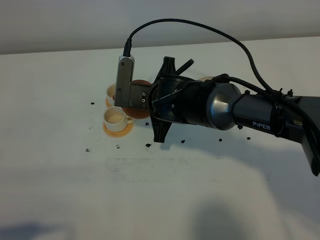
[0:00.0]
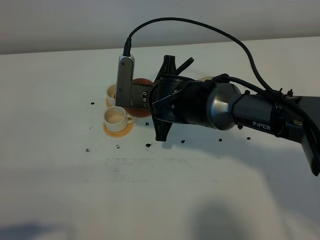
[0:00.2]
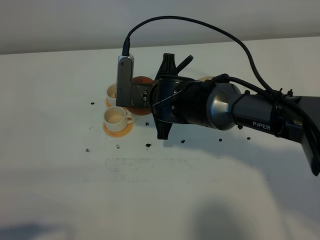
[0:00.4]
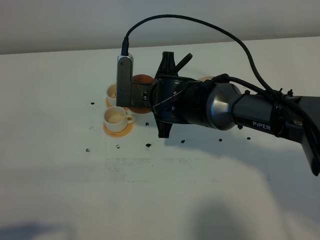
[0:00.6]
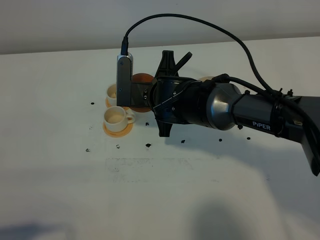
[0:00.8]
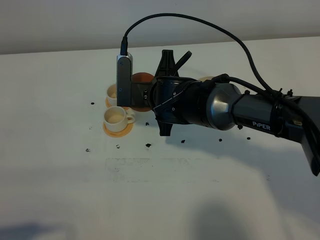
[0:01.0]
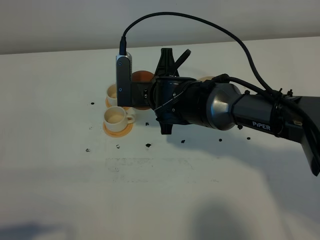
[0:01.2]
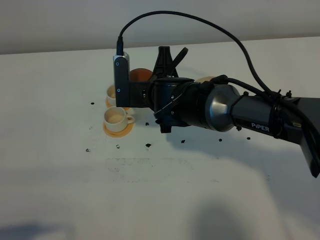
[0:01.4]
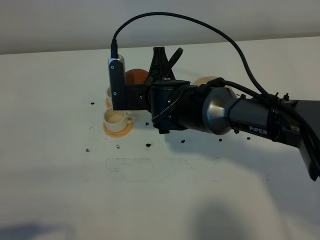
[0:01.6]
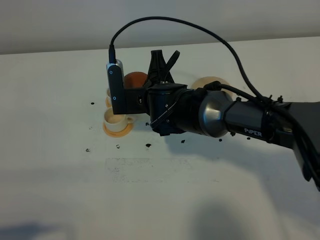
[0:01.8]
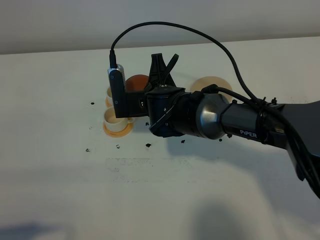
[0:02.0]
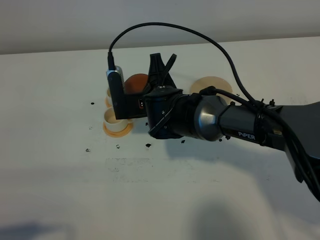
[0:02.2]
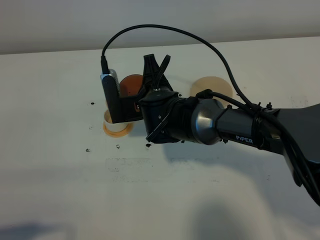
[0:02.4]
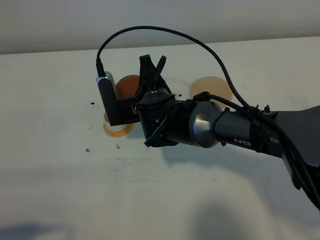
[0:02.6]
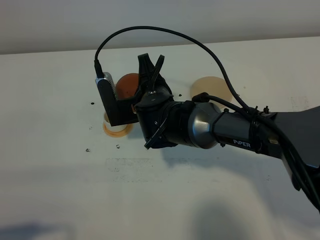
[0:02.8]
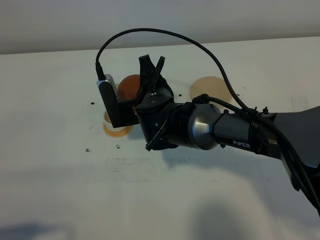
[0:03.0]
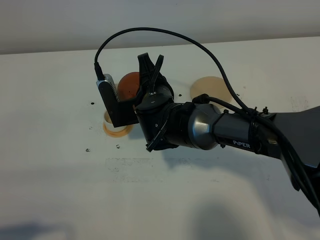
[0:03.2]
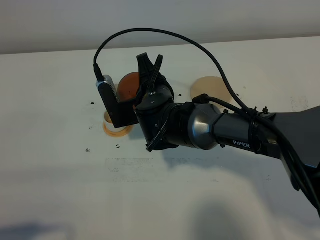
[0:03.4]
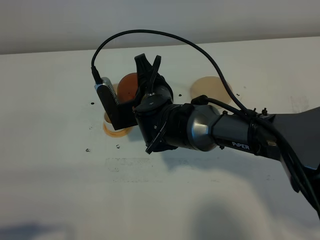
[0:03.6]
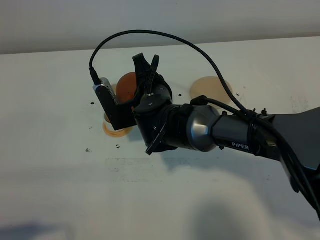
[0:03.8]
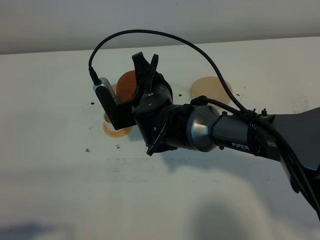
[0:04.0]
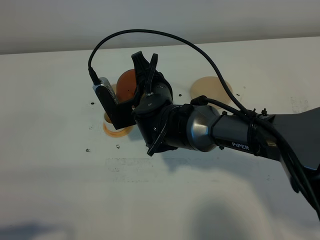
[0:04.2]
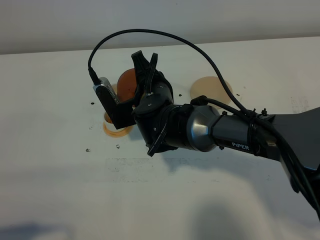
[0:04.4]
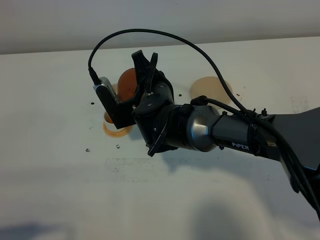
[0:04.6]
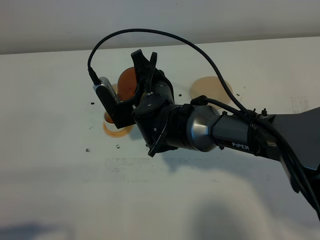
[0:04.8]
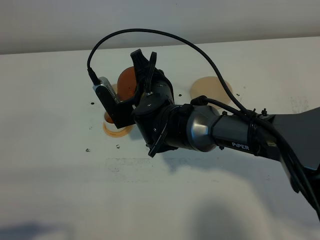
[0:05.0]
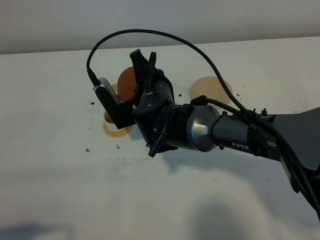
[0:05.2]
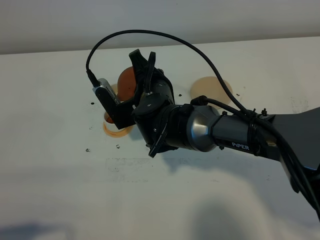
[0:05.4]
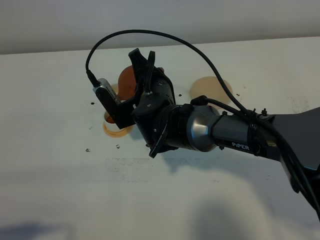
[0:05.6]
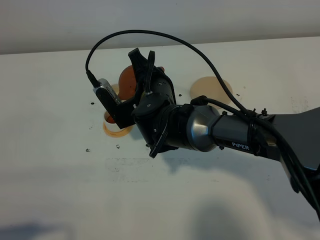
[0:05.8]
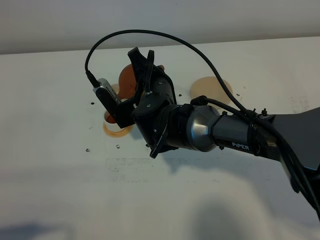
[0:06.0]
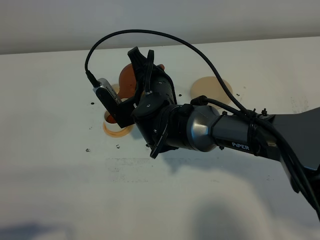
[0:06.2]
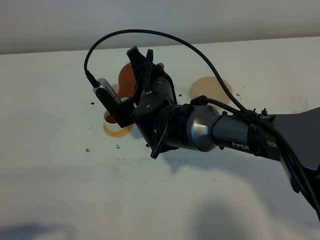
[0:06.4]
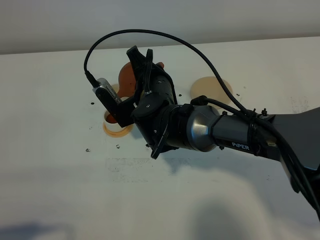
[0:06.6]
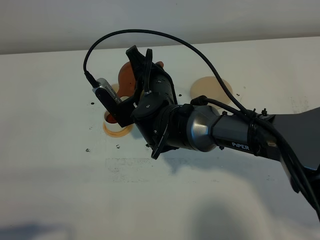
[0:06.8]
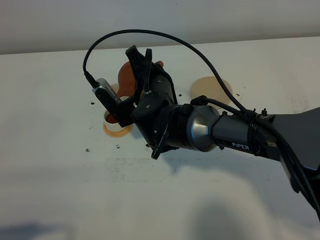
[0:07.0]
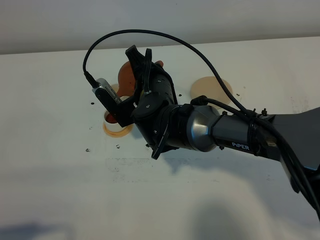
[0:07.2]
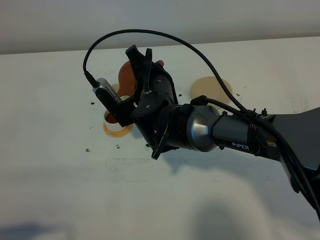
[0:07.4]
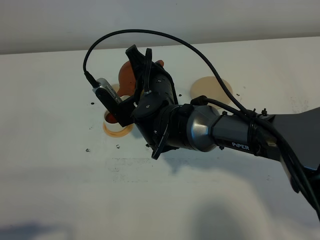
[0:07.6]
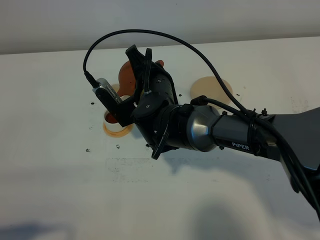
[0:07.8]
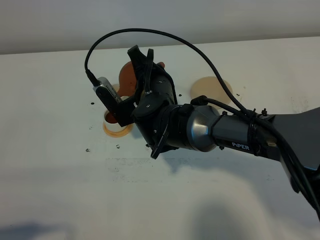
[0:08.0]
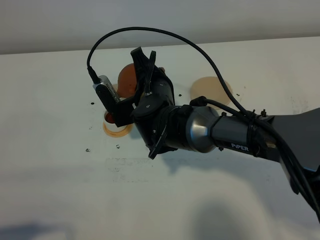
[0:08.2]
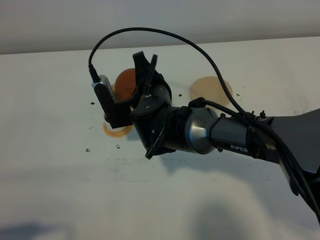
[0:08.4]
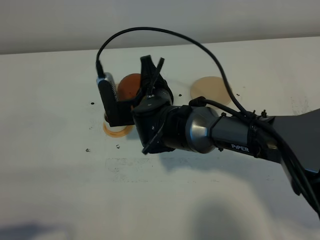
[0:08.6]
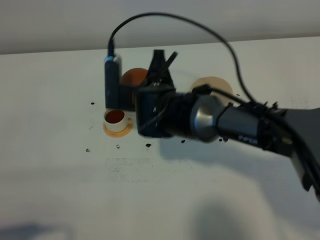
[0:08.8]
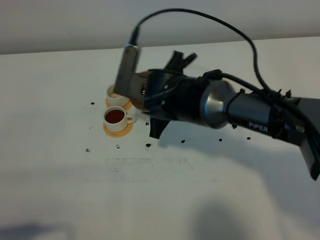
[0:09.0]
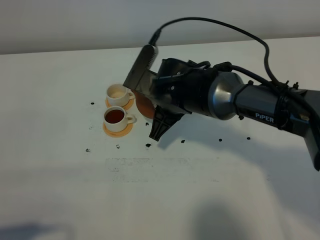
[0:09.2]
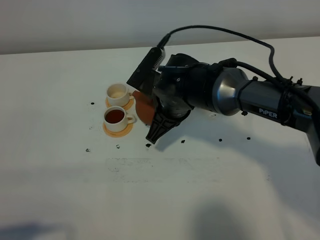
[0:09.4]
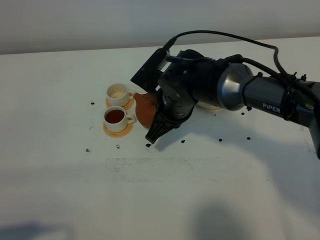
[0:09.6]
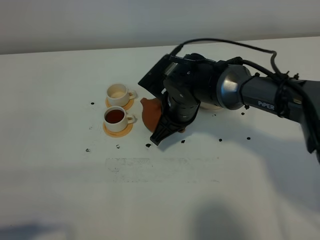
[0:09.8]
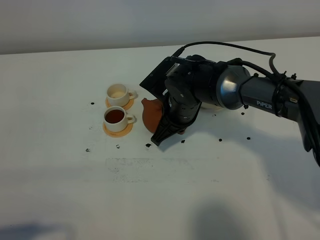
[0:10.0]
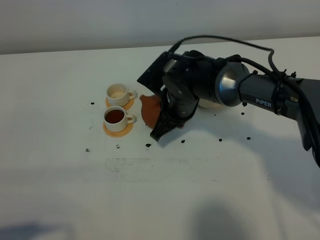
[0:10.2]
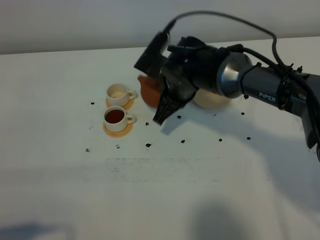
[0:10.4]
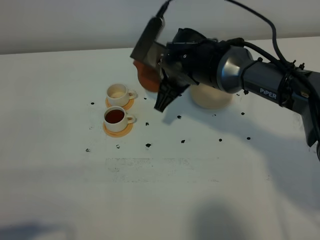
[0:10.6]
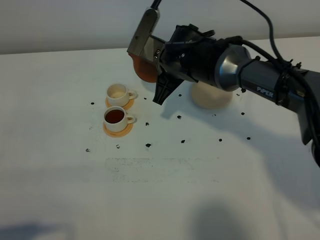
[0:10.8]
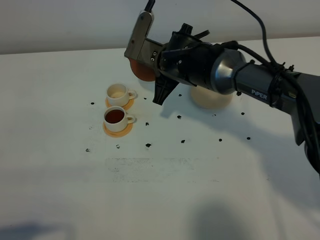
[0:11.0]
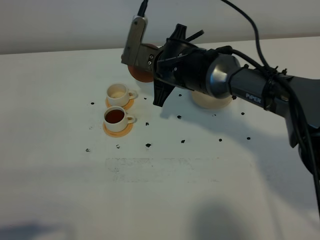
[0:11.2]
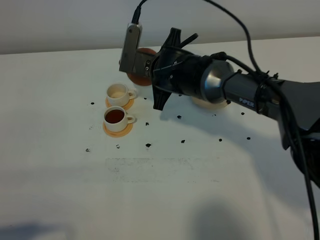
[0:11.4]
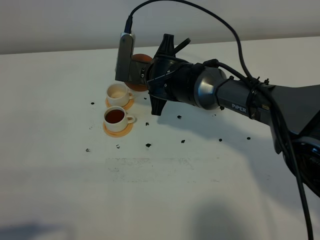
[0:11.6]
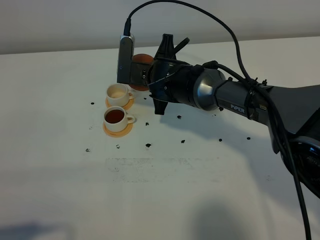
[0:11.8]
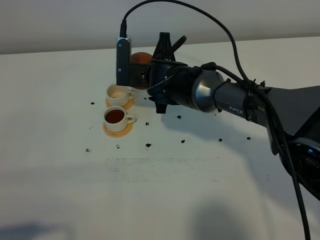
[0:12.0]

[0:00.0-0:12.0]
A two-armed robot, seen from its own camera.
Task of the whole recording: grasp the brown teapot and pour the tea into the two white teacups one by one, put the brown teapot back in its original place.
Step, 0:00.0 to 0:08.6: Pour tea into the teacup with the right gripper.
0:00.0 to 0:01.6: There are only small adjustments of the grippers.
0:01.6 to 0:03.0: The grippers make only small movements.
0:03.0 to 0:06.0: The grippers move only a little.
0:06.0 to 0:07.6: Both grippers stay about where they are.
0:09.0 to 0:10.4: The right gripper moves about 5 cm.

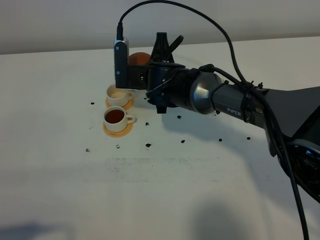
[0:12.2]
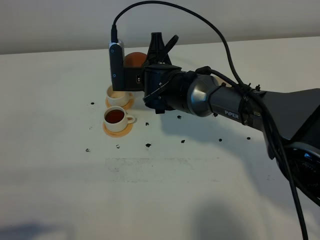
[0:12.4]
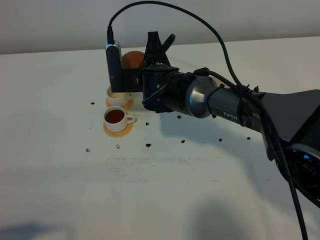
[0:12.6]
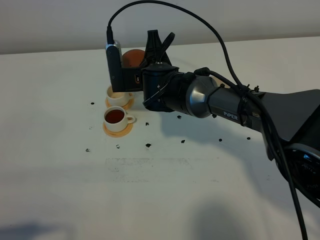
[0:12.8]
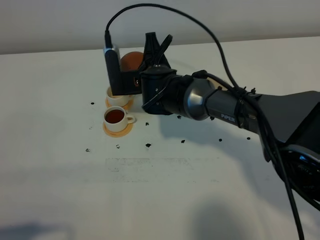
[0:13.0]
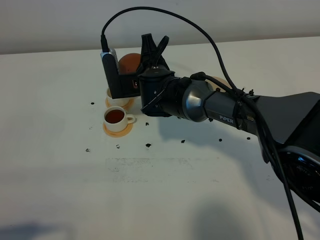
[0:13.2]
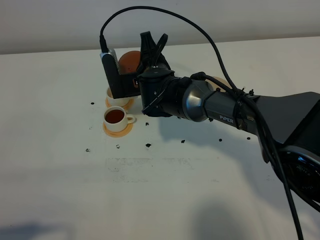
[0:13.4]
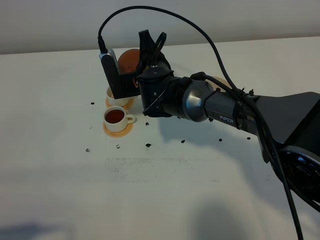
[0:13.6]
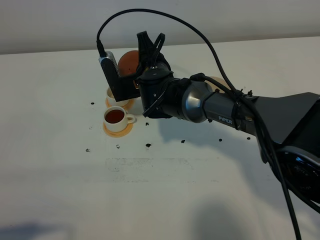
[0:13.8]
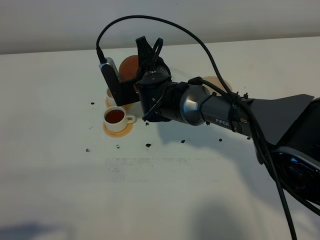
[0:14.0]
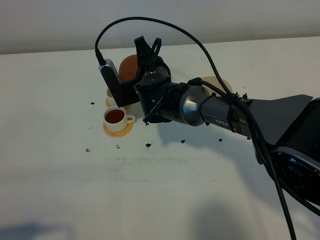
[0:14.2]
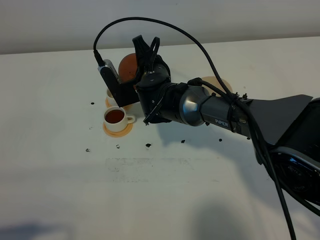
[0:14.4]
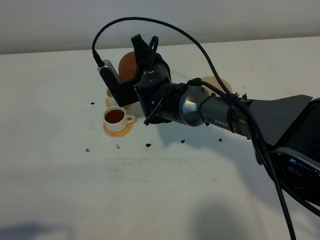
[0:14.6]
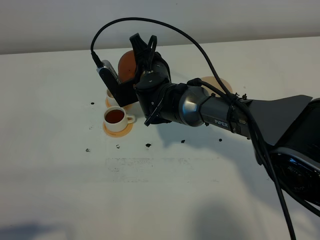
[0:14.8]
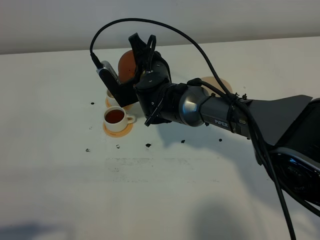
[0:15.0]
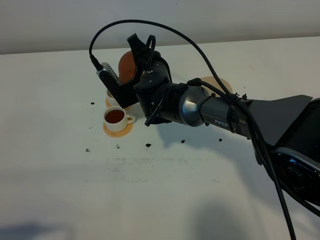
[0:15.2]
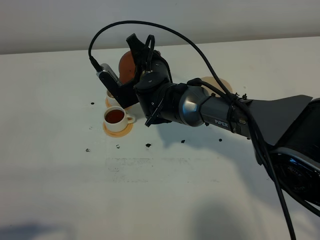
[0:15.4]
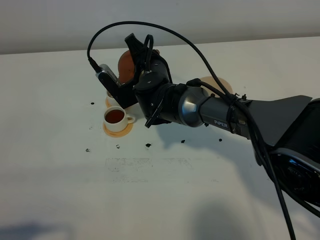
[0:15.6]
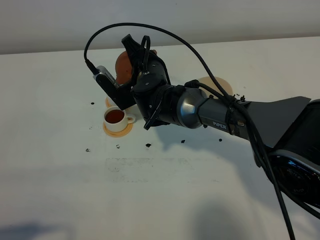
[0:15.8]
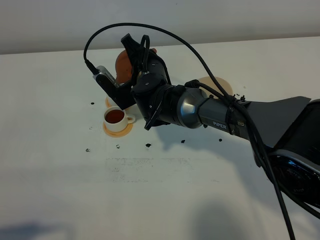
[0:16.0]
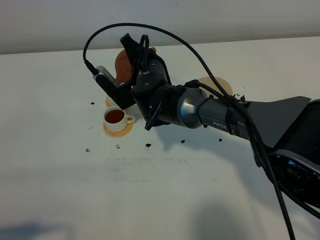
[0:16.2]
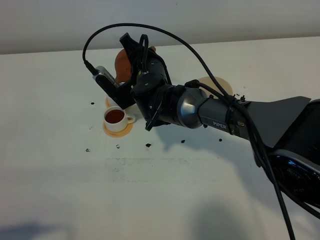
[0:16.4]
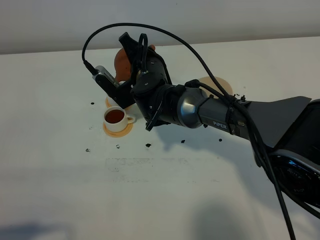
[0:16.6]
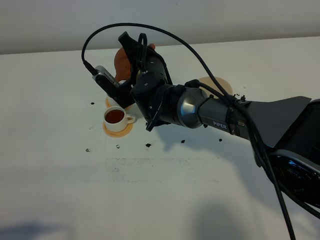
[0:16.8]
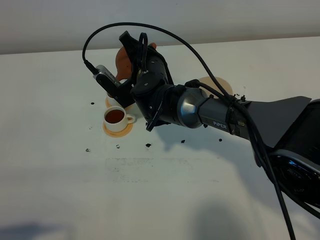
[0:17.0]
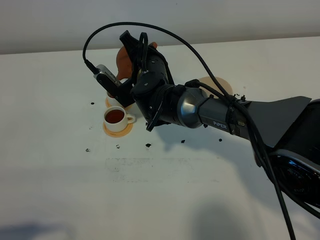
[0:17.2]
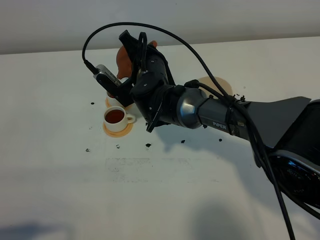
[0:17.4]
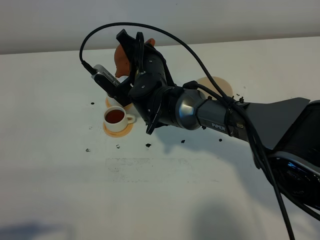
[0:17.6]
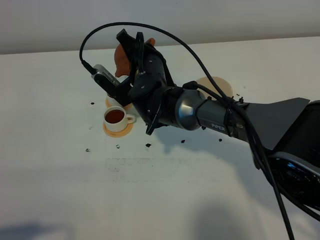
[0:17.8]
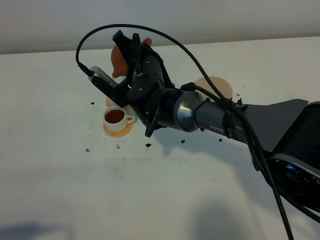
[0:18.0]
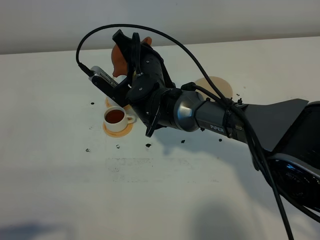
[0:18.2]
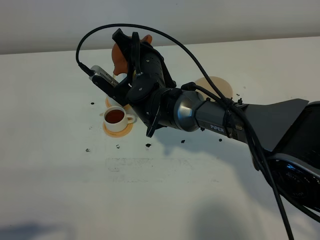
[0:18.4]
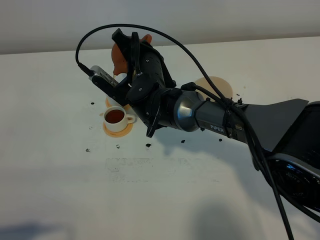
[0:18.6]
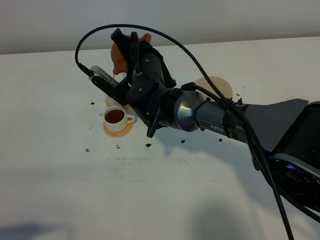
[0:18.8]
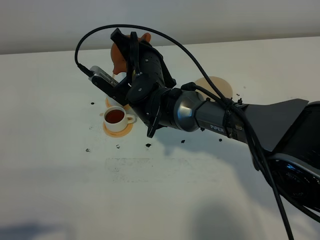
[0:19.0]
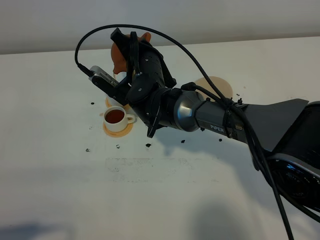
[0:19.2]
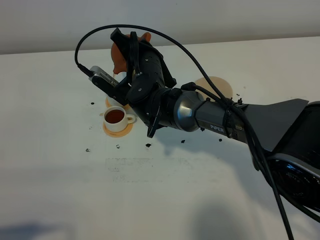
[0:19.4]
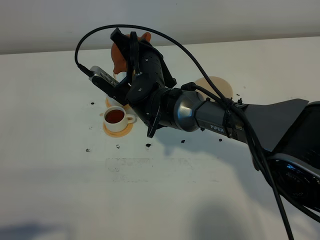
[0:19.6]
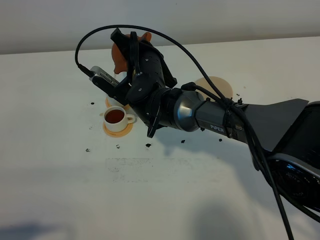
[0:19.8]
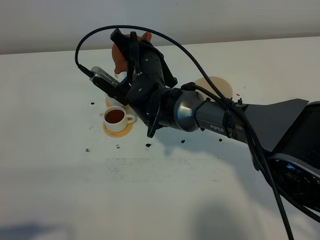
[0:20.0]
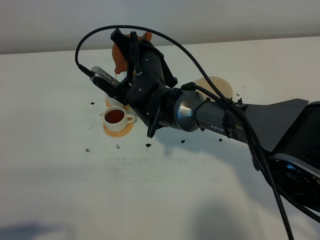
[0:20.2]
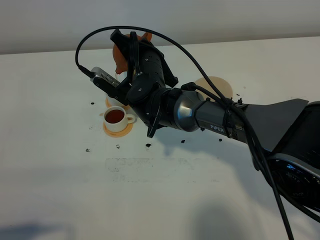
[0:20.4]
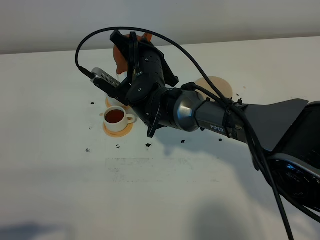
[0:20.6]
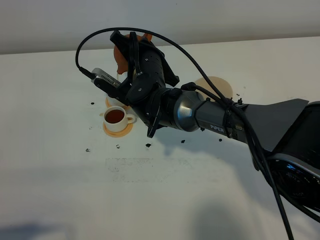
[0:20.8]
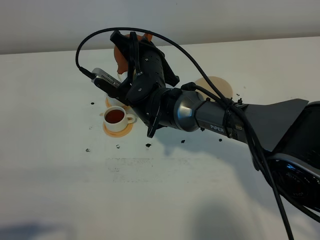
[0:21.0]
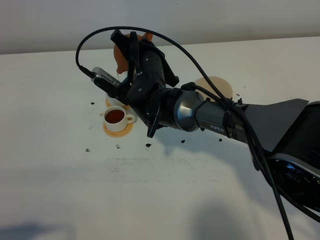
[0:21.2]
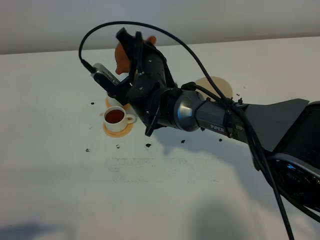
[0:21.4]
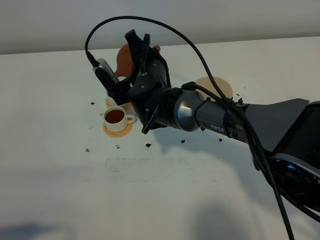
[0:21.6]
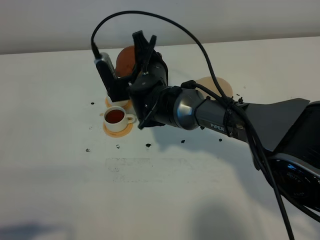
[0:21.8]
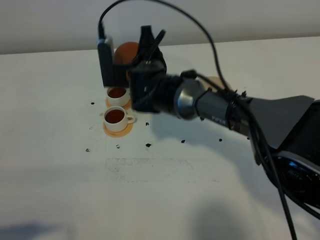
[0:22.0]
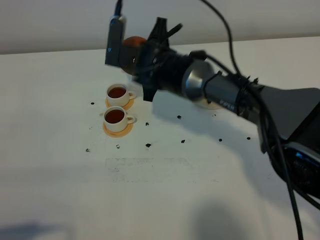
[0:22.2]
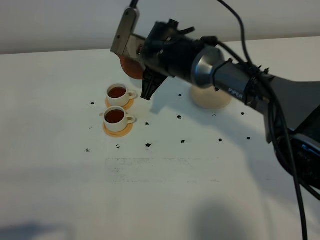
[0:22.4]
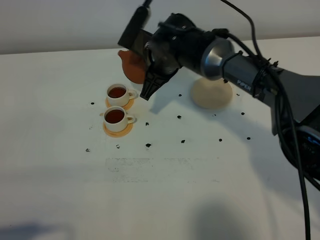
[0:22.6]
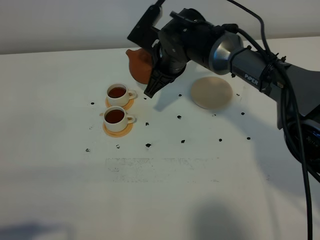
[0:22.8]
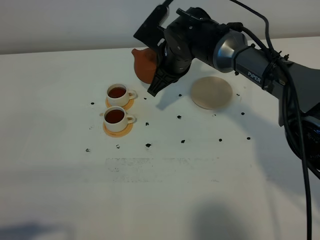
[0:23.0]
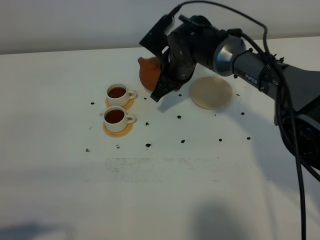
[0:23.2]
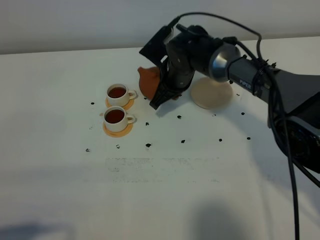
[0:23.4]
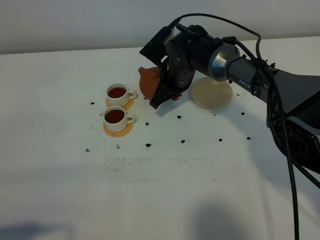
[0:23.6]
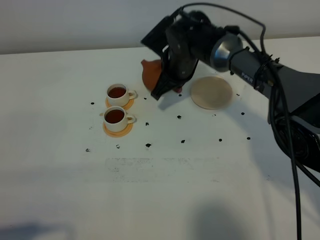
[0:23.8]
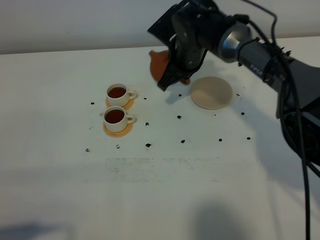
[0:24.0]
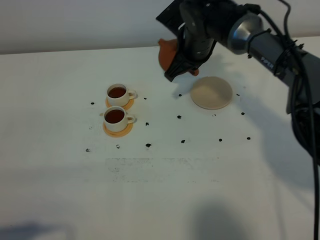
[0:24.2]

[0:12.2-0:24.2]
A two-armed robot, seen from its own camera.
Task of the whole recording: grasp the brown teapot and pour the tea into the two white teacups one by one, put the brown teapot back in its original place.
Step, 0:12.2 to 0:21.6: Pour tea into the teacup with the right gripper.
0:13.8 to 0:15.2: The grippers stay close to where they were, moving slightly.
0:15.2 to 0:18.2: The grippers stay close to where they were, moving slightly.
0:18.2 to 0:19.8: Both grippers stay put.
0:19.8 to 0:21.2: The two grippers keep their place.
0:21.2 to 0:22.6: The right gripper ends up some 5 cm from where it was.
0:22.6 to 0:24.2: The right gripper is displaced to the right by some 5 cm.
